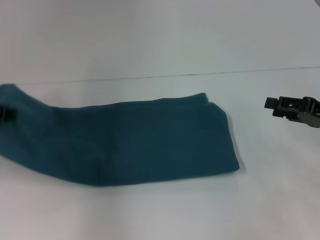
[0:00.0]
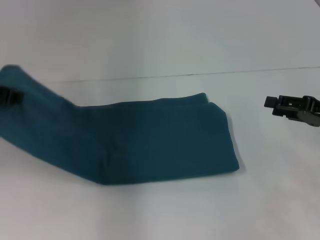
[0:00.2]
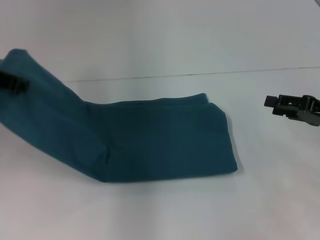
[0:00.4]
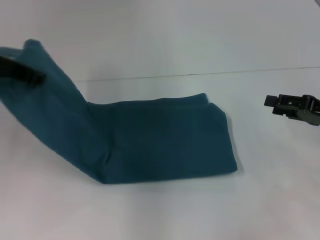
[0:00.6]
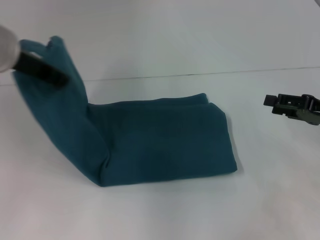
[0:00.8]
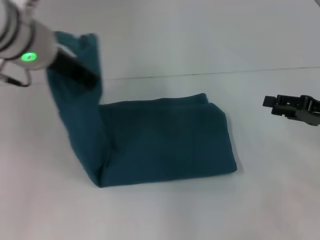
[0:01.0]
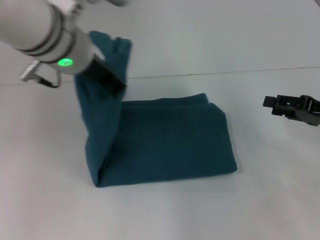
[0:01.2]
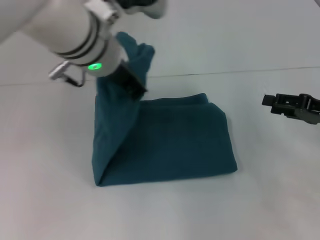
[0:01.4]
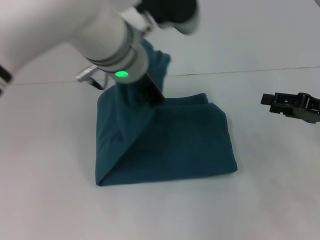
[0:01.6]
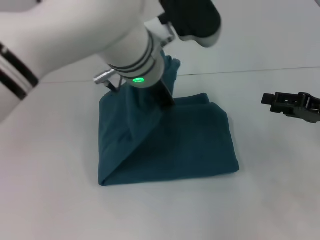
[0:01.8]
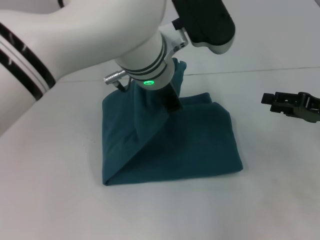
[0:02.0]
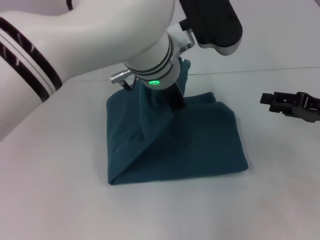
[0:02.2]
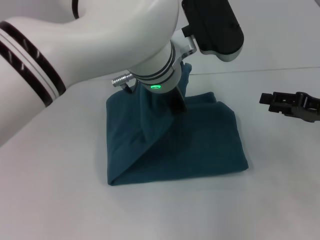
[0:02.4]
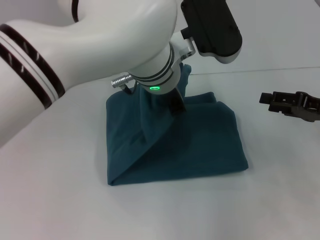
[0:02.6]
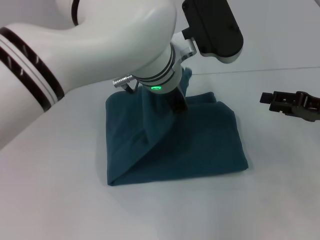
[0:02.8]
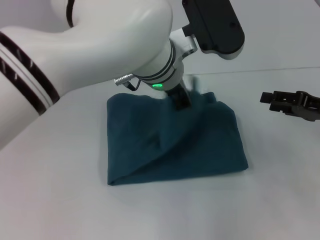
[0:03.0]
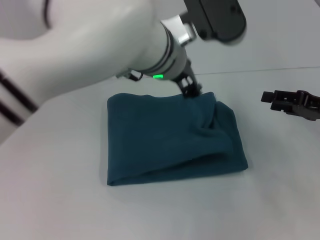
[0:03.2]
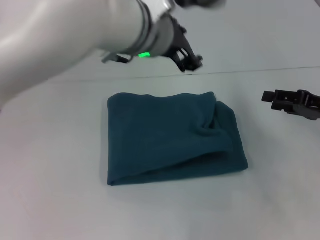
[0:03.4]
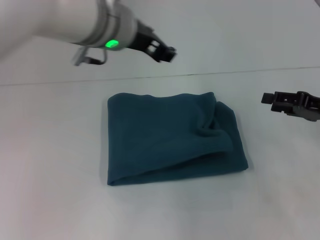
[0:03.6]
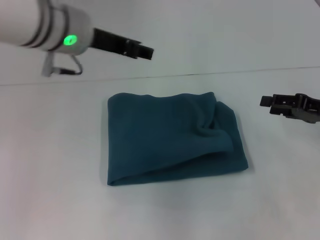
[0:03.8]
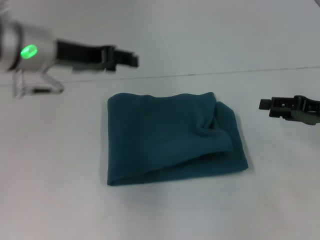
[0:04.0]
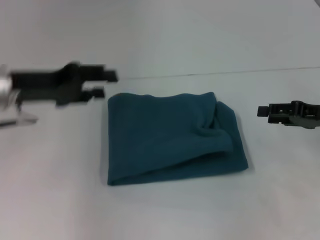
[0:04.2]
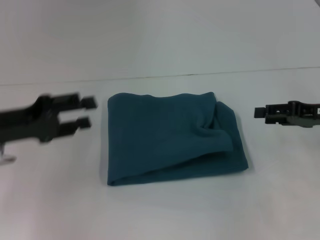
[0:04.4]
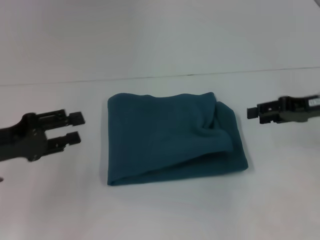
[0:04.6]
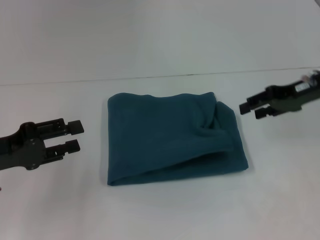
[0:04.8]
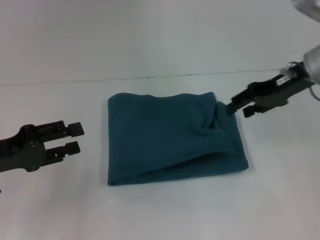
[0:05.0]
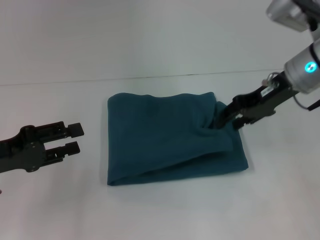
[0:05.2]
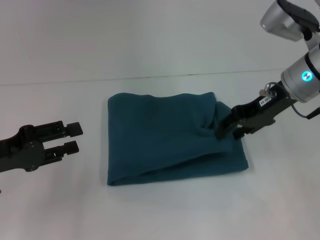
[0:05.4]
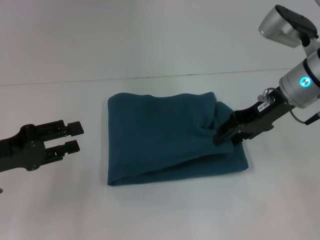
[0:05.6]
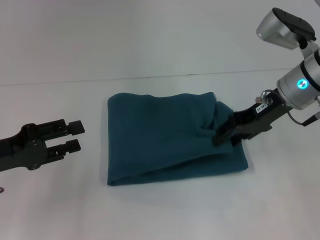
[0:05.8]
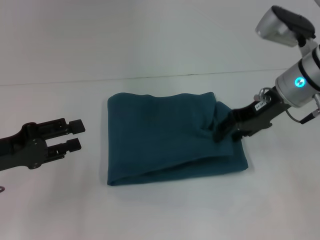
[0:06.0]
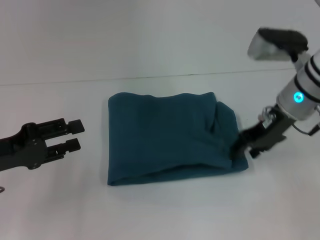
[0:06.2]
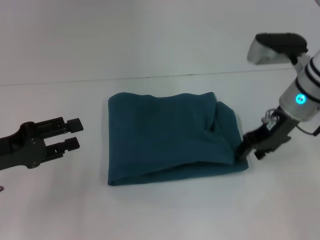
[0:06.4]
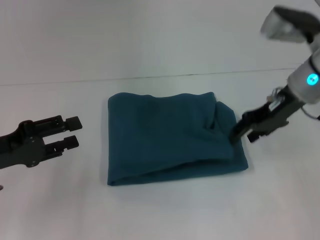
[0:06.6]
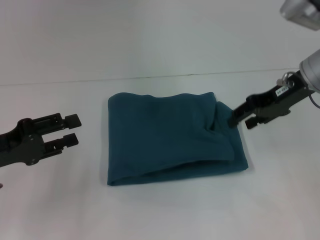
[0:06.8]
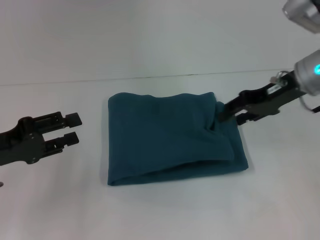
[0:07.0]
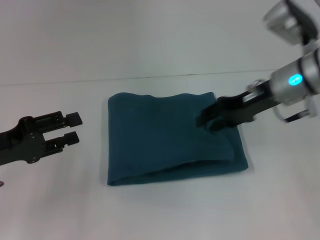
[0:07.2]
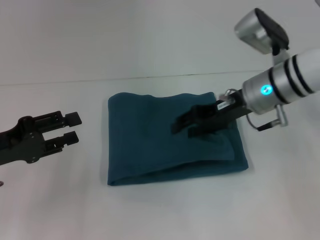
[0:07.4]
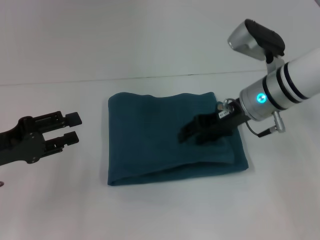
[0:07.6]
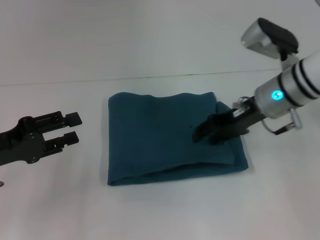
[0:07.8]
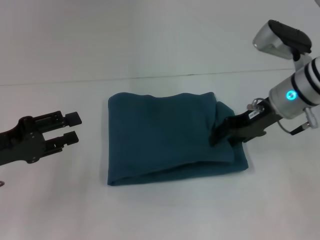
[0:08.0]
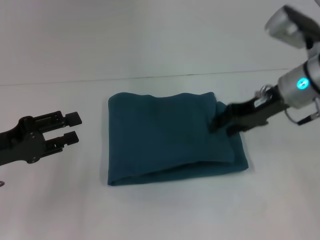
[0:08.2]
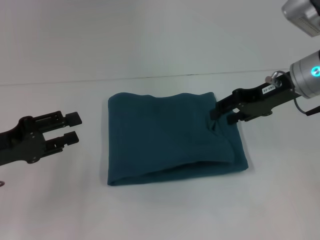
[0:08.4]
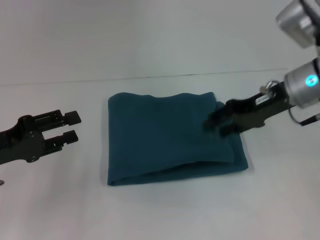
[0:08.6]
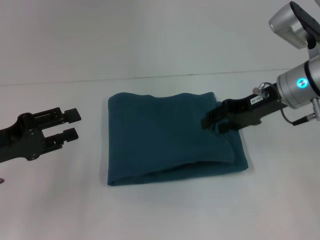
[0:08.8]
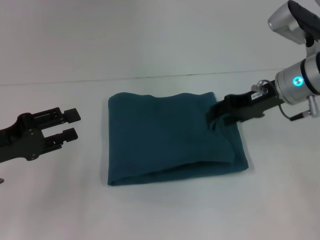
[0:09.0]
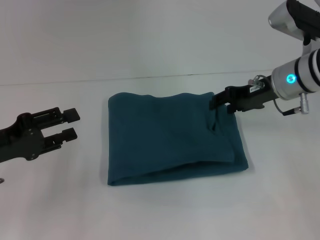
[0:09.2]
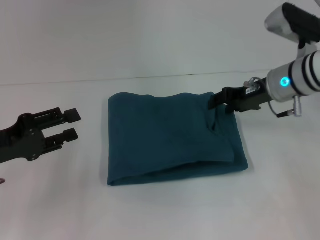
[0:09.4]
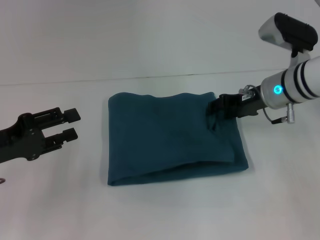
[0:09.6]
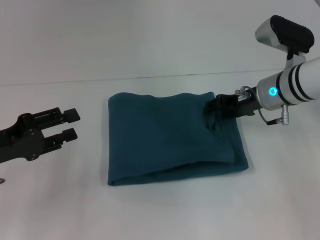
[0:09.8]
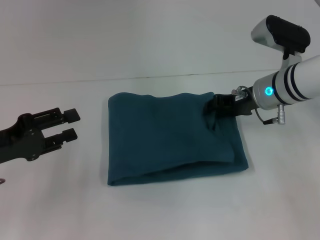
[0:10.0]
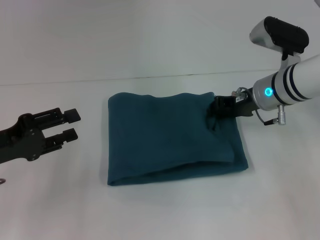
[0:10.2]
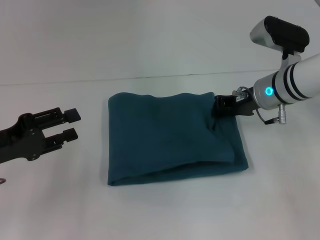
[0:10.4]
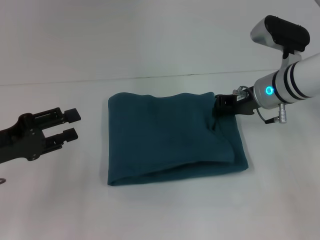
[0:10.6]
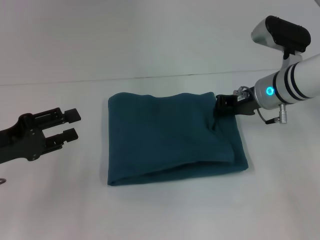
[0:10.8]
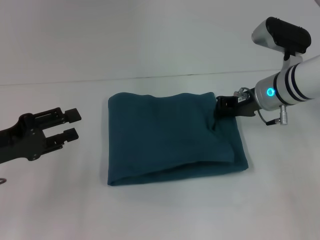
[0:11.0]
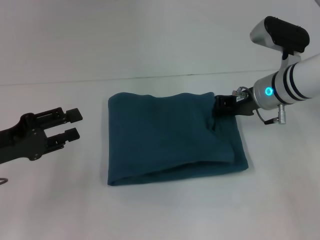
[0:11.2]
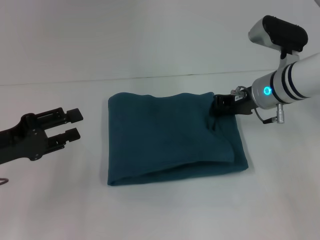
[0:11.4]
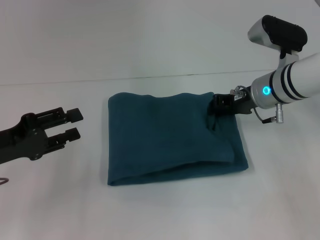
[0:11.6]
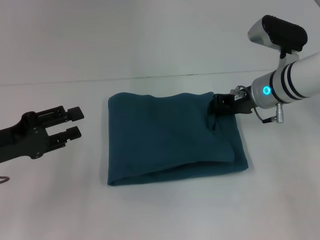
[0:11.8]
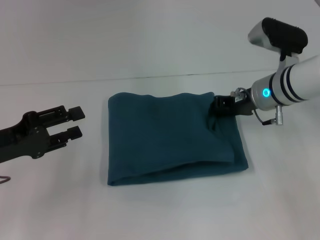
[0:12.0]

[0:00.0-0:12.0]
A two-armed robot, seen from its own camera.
Step, 0:00.0 to 0:03.2: Fold the clothes to the left.
0:00.0 to 0:01.6: The left gripper is displaced to the right by about 25 cm.
0:01.6 to 0:03.0: The left gripper moves some 5 cm.
0:03.0 to 0:04.4: The left gripper moves to the left, roughly 30 cm, and opens its fingers.
0:04.4 to 0:06.0: The left gripper shifts by about 5 cm. The right gripper shifts approximately 15 cm to the left and forward.
0:06.0 to 0:07.6: The right gripper changes place by some 5 cm.
0:07.6 to 0:09.0: The right gripper heads to the right, covering some 5 cm.
0:09.0 to 0:10.4: The right gripper closes up.
0:10.4 to 0:12.0: Both grippers stay put.

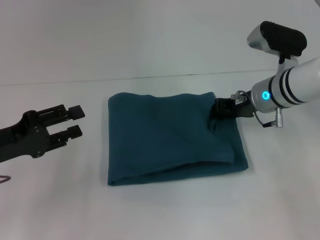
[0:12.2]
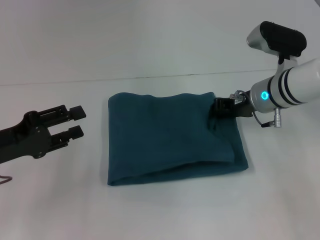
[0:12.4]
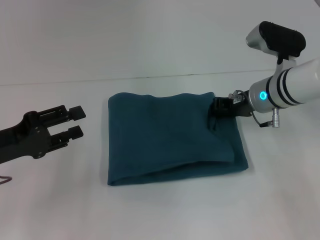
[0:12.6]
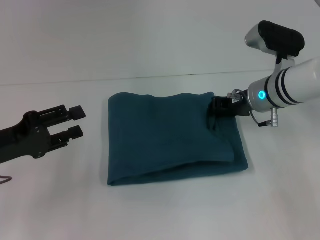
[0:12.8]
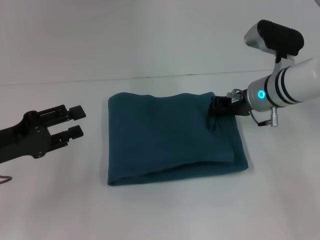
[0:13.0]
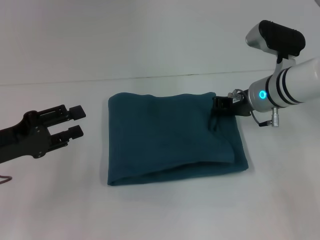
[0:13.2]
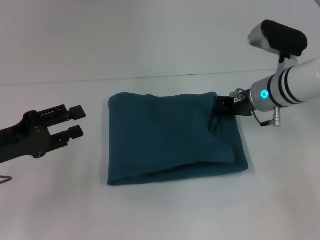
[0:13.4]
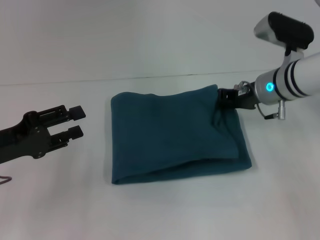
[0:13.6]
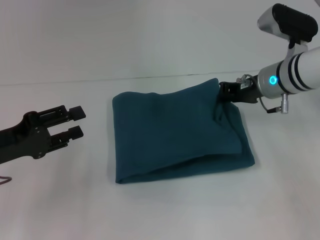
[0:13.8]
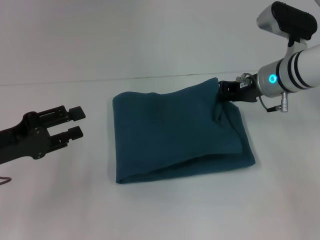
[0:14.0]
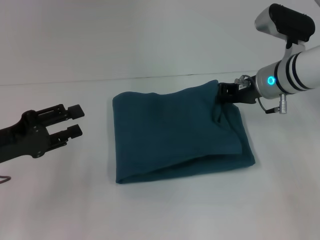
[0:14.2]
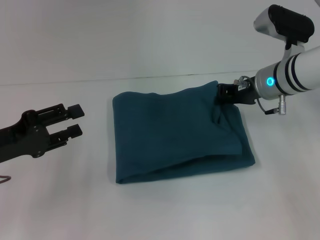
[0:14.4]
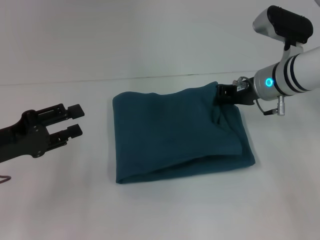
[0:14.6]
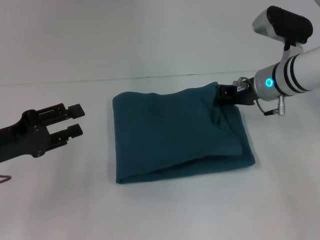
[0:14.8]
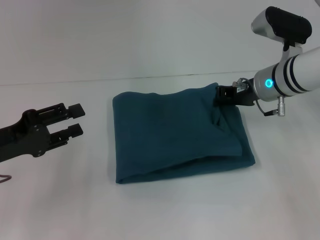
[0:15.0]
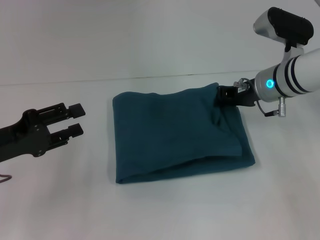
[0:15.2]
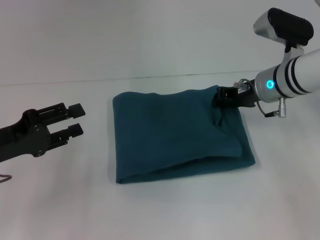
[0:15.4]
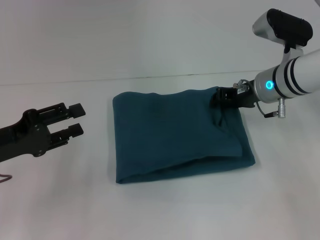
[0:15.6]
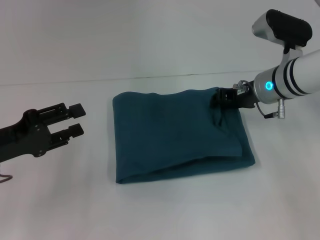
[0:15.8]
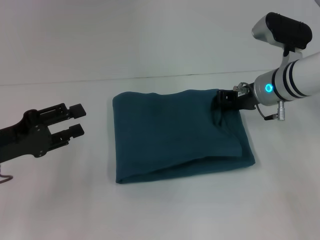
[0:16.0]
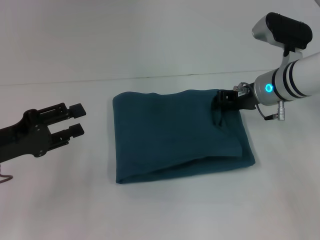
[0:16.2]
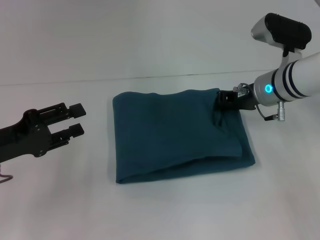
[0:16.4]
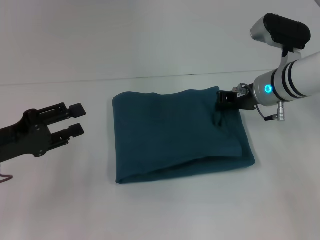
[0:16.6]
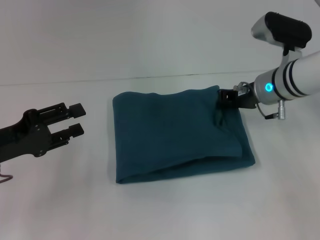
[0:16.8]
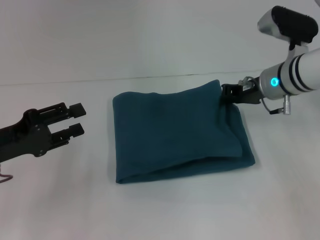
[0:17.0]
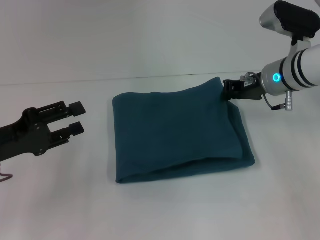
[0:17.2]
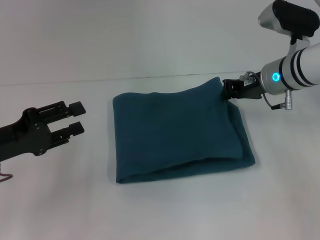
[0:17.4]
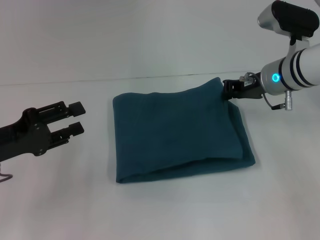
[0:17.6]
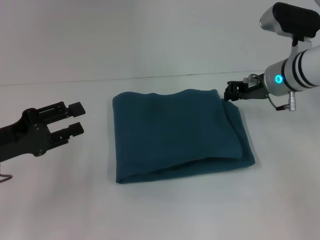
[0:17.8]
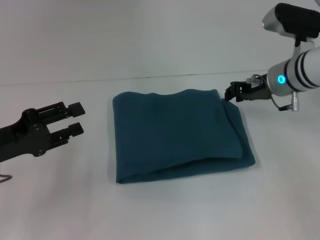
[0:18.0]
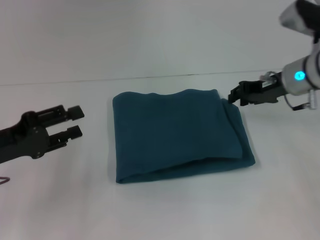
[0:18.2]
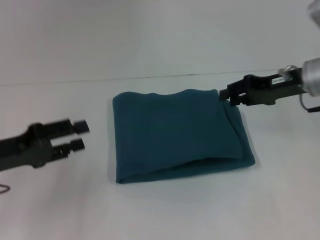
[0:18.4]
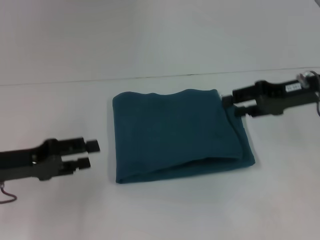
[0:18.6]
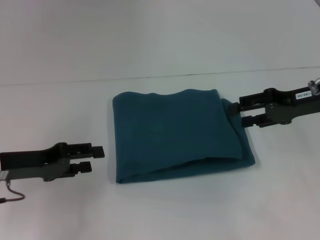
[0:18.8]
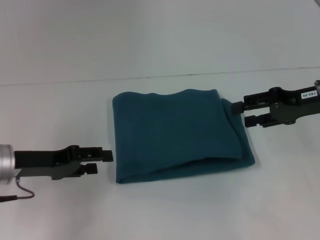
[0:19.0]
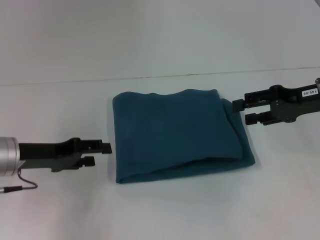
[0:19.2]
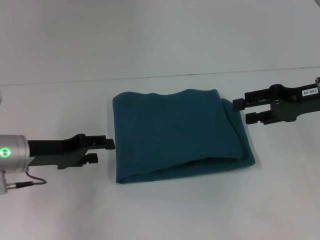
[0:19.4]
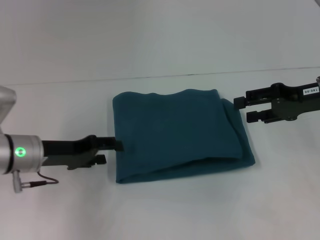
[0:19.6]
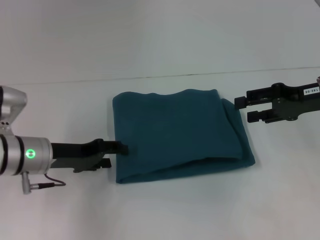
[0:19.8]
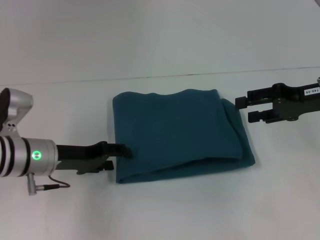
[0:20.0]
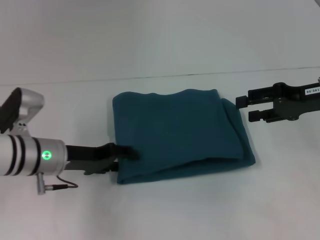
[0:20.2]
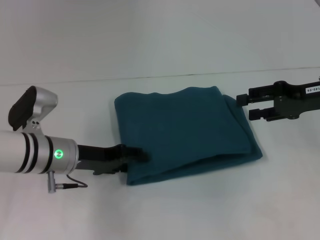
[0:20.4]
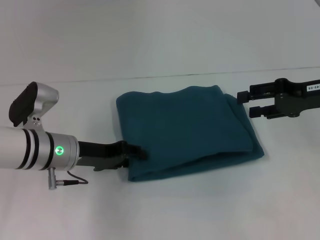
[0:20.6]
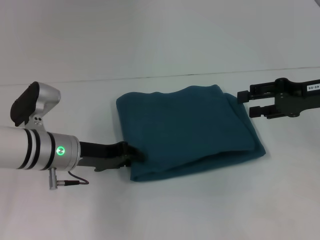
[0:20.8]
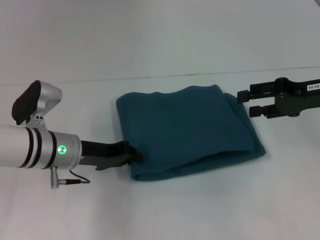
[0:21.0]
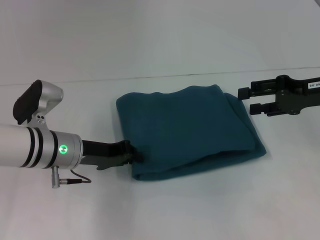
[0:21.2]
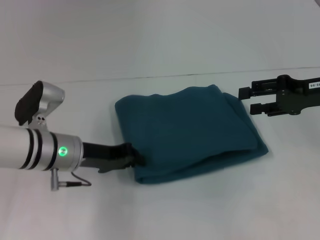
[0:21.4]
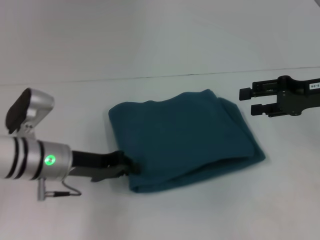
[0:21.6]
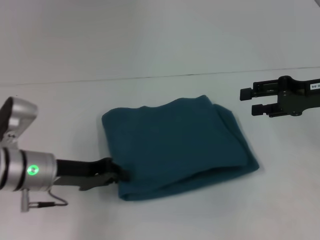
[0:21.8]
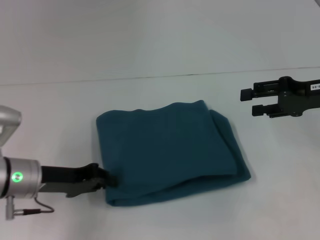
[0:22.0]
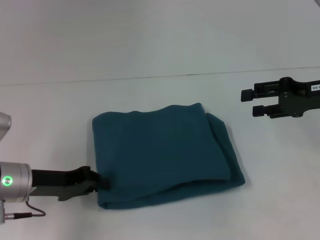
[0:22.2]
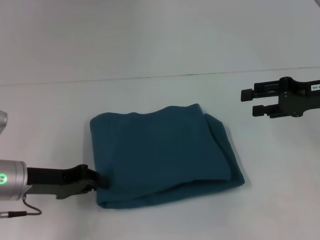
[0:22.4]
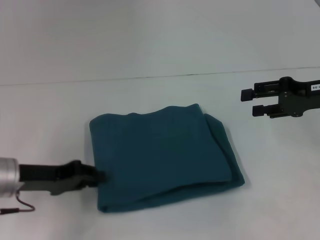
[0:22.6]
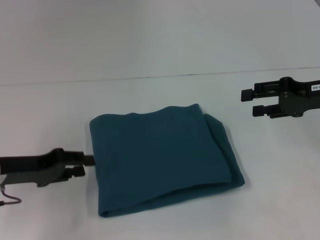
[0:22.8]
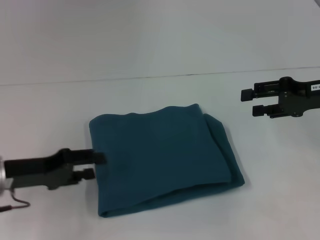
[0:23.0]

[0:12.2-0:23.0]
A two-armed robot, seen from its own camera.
0:12.2 to 0:13.8: The grippers make only small movements.
0:13.8 to 0:16.8: Both grippers stay about where they are.
0:16.8 to 0:18.4: The right gripper goes some 5 cm to the right, and opens its fingers.
0:18.4 to 0:20.0: The right gripper moves about 5 cm, and opens its fingers. The left gripper is displaced to the right and forward by about 10 cm.
0:20.0 to 0:21.4: The left gripper closes its fingers.
0:21.4 to 0:23.0: The left gripper shifts roughly 10 cm to the left and backward, and opens its fingers.
